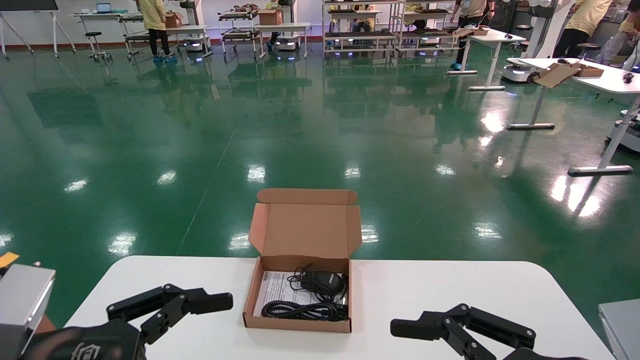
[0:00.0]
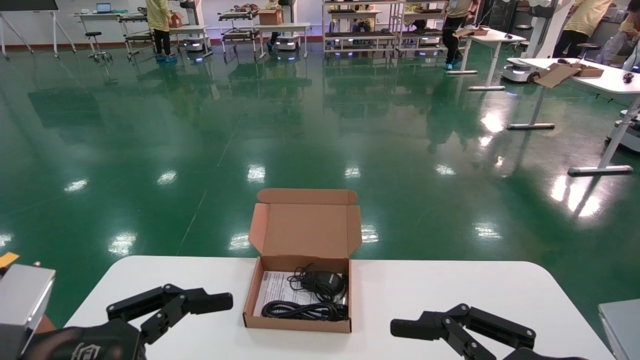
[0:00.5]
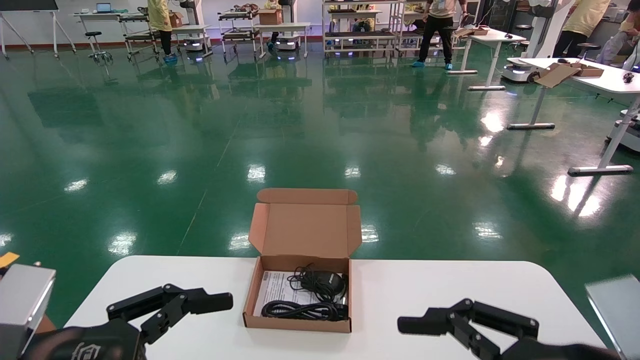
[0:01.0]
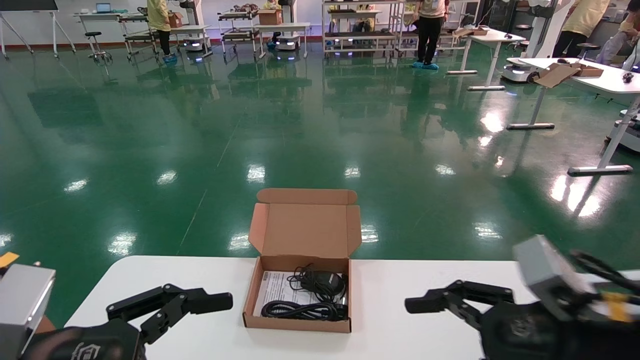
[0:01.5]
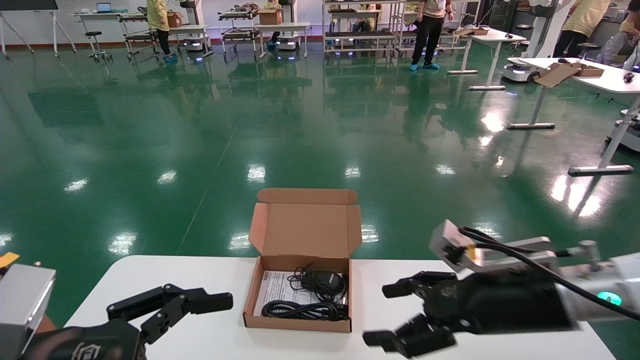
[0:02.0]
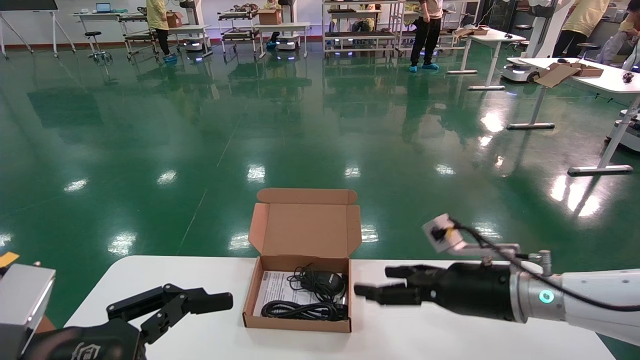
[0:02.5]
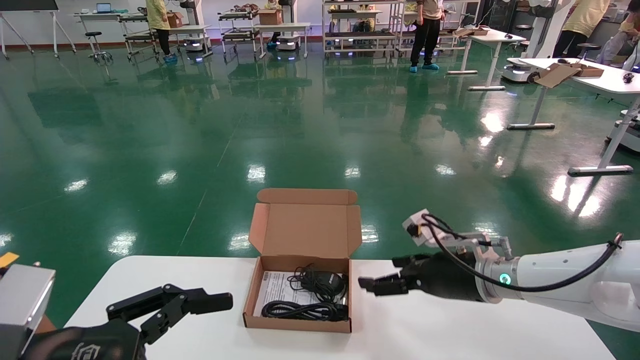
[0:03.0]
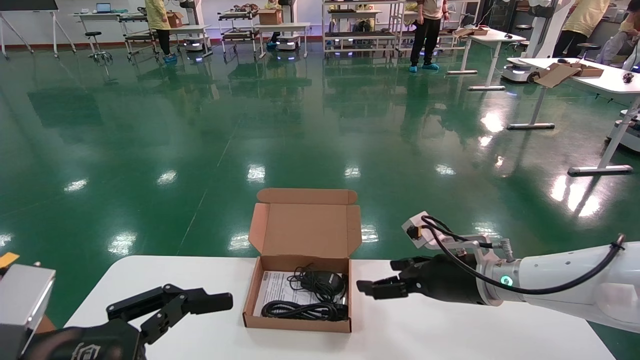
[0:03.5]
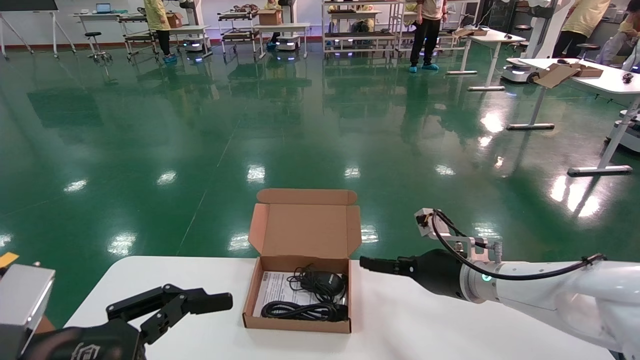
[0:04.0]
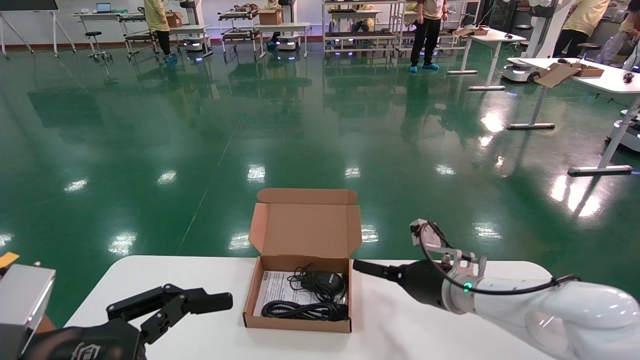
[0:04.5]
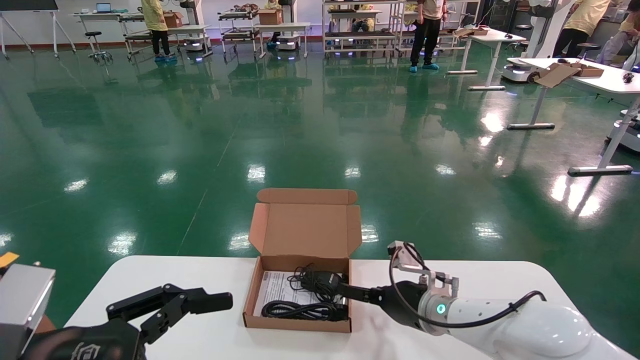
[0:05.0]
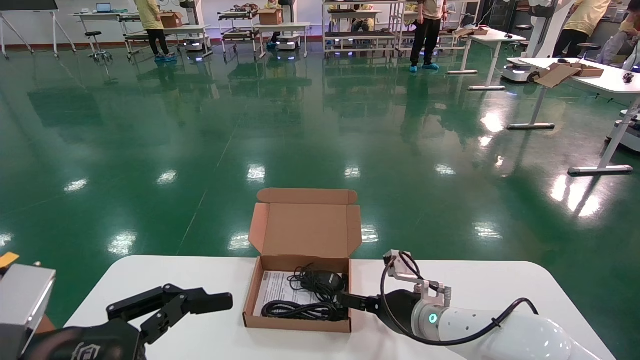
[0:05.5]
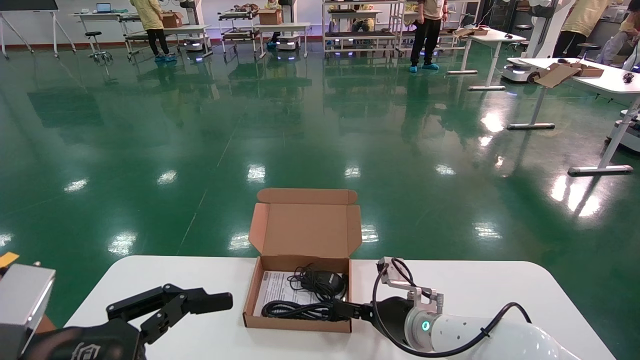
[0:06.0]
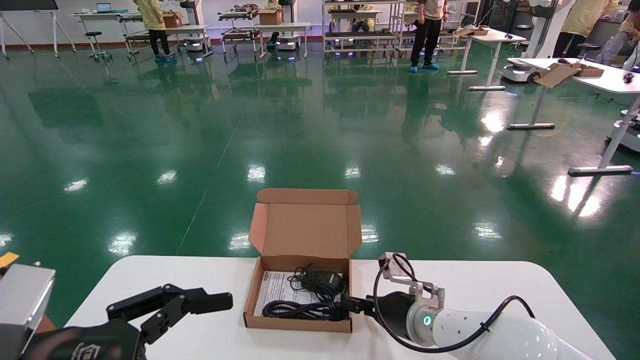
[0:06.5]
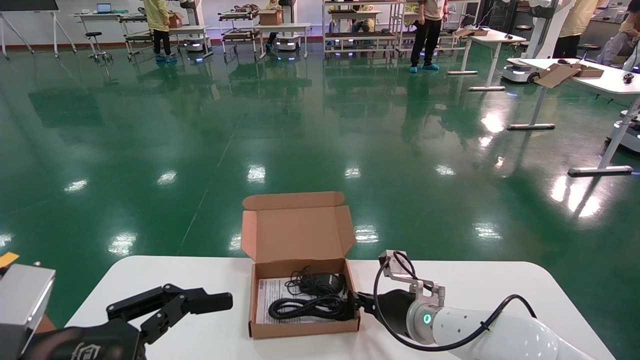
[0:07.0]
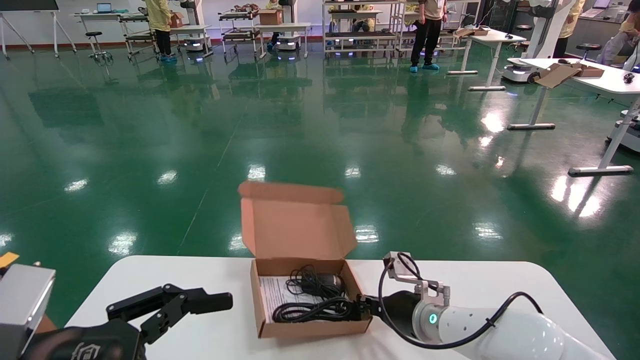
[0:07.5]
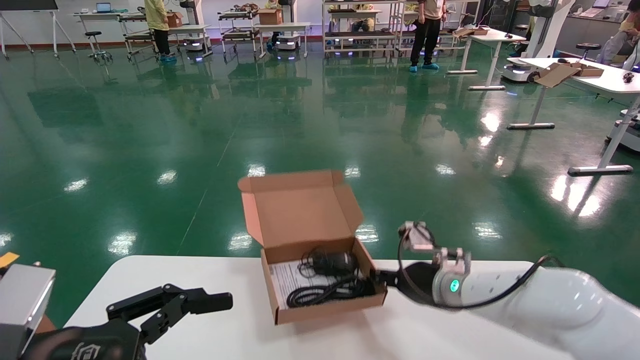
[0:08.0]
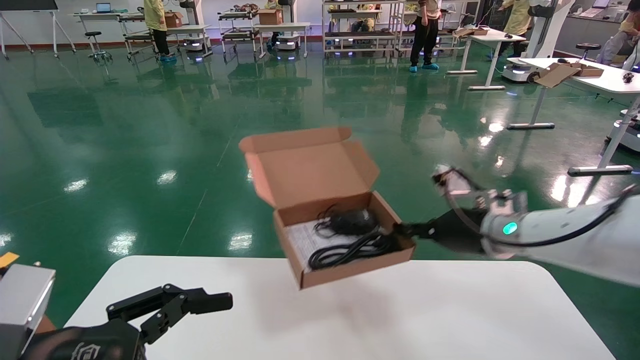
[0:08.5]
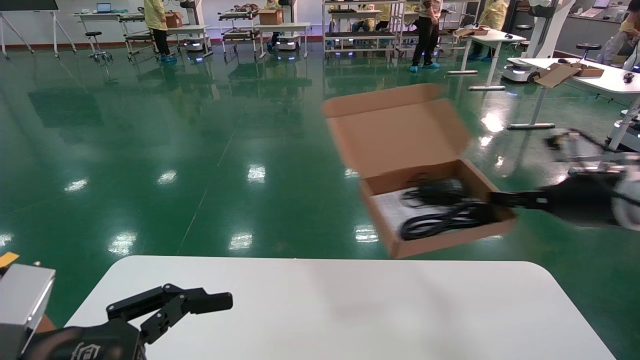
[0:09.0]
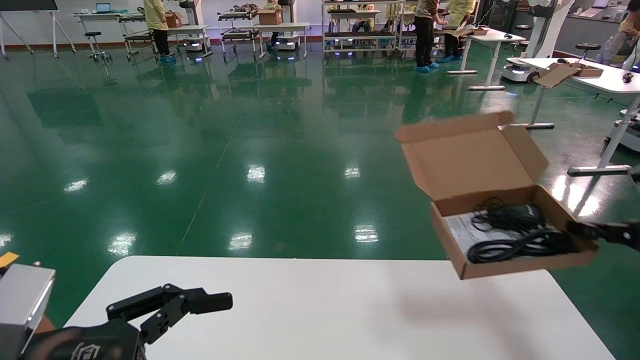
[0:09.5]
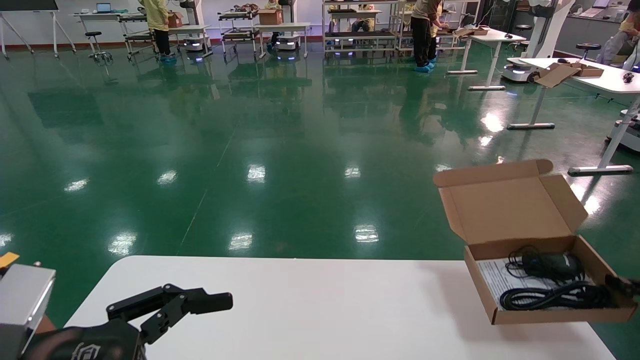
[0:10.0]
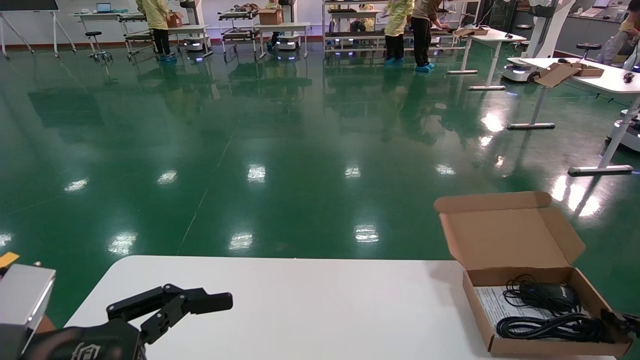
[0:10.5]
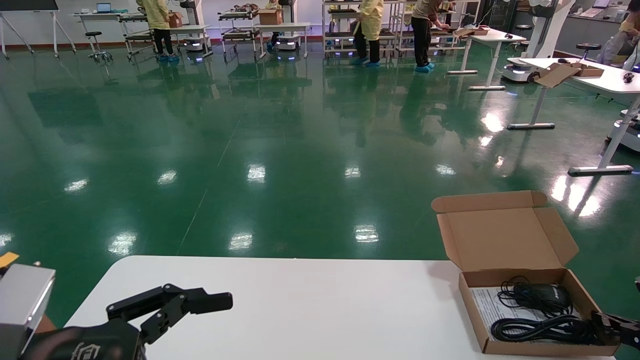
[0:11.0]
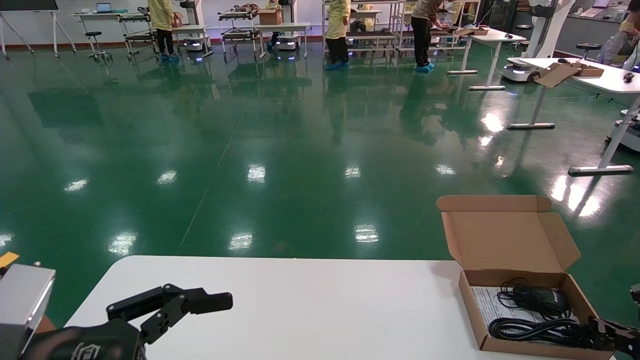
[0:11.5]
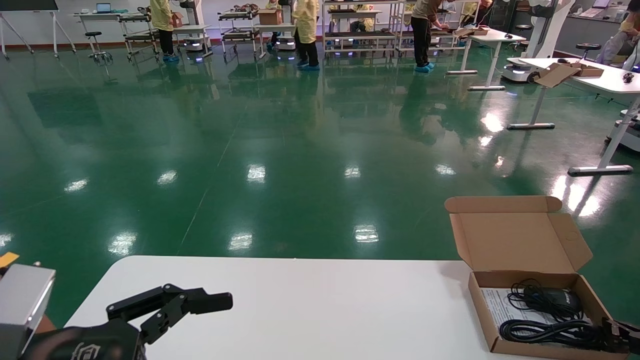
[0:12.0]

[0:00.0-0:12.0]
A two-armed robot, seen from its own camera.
Task of the whole recording: move the position of the storage box with accessories on the table.
Step, 0:01.5 to 0:07.0: Grab and pick up the open mouse box from the accessory packaging area.
0:00.0 to 0:02.0: The right gripper goes about 15 cm forward.
0:02.0 to 0:04.0: The right gripper moves forward, about 15 cm.
0:04.0 to 0:06.0: The right gripper travels downward and to the left by roughly 10 cm.
0:06.0 to 0:08.0: The right gripper shifts roughly 5 cm upward, and closes up.
0:08.0 to 0:10.0: The right gripper travels to the right by roughly 35 cm.
0:10.0 to 0:12.0: The right gripper shifts about 10 cm downward.

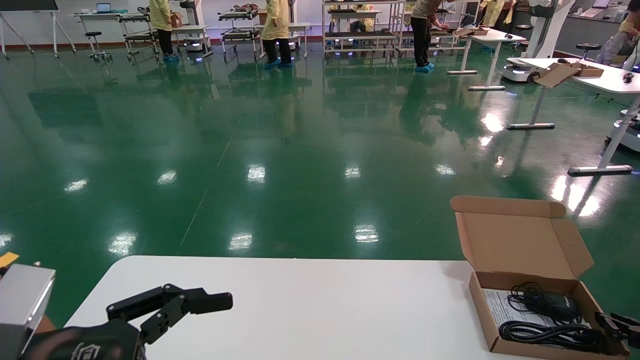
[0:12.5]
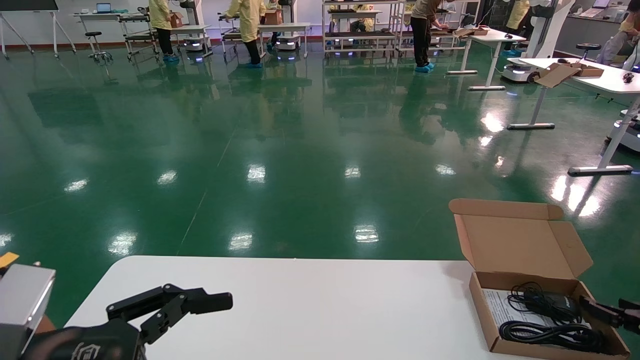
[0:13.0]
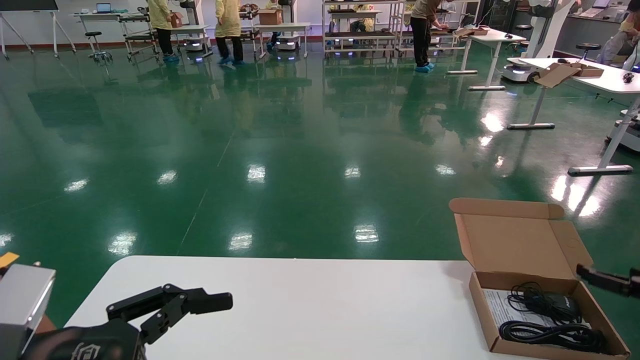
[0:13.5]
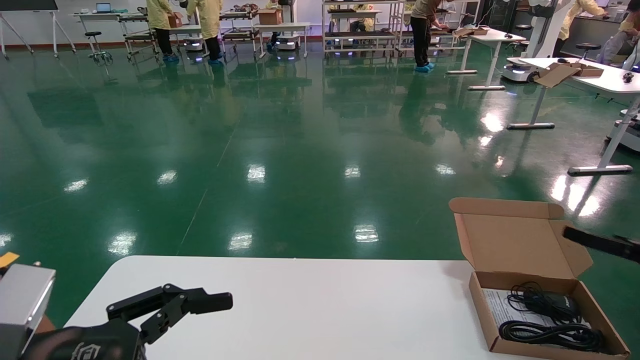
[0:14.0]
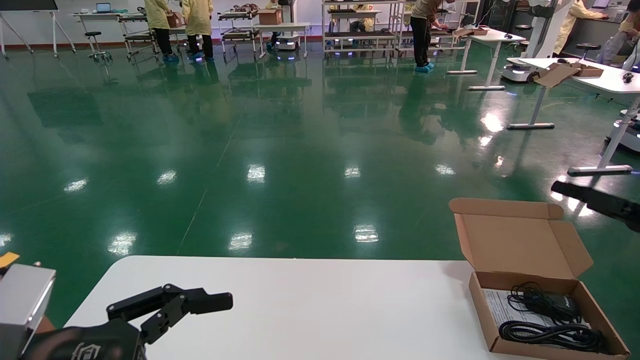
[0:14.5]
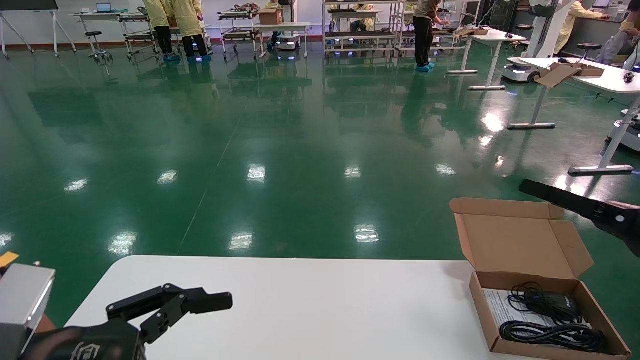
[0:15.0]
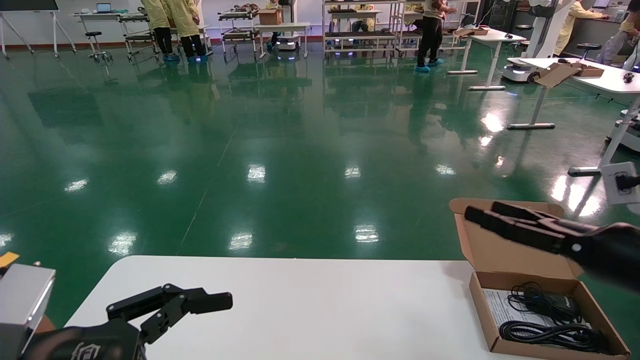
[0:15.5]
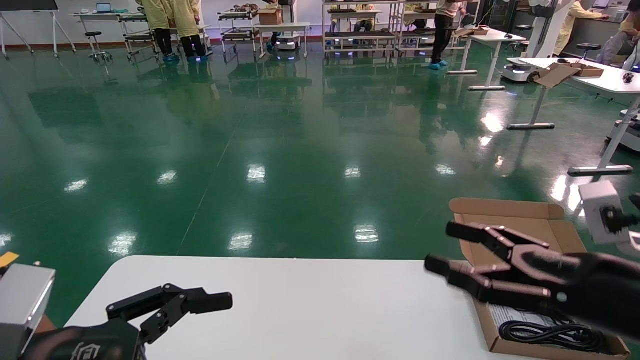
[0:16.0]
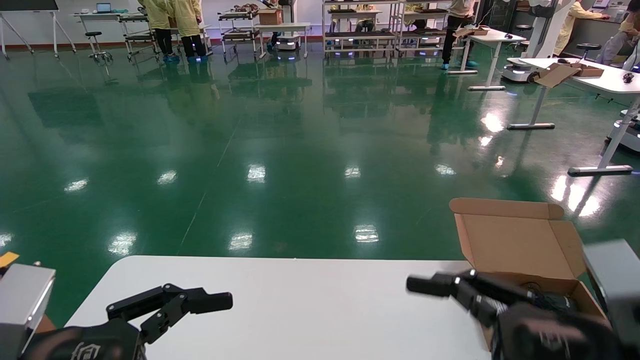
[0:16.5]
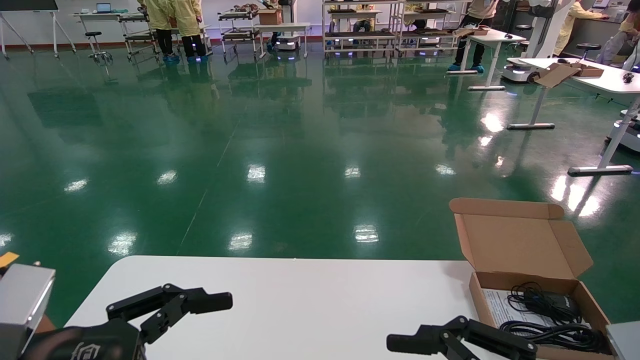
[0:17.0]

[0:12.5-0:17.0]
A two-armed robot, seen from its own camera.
Task of the whole recording: move the position of the storage box with accessories on the table.
0:12.5 to 0:14.5: The right gripper heads upward, covering about 15 cm, and opens up.
0:14.5 to 0:17.0: The right gripper is displaced to the left and backward by approximately 30 cm.
